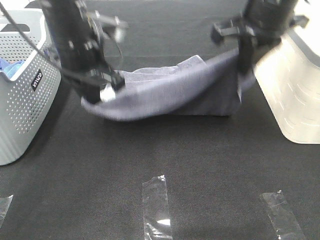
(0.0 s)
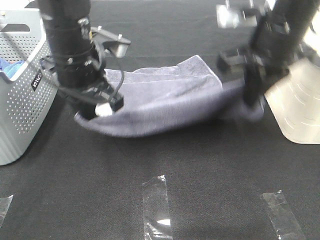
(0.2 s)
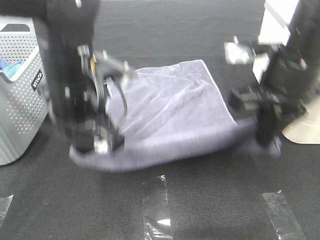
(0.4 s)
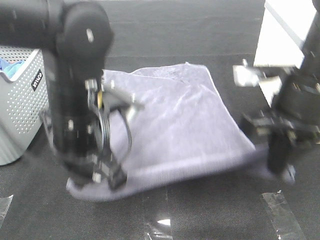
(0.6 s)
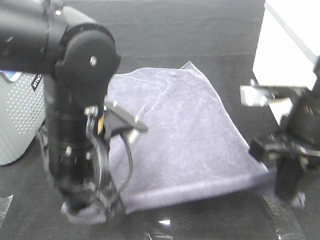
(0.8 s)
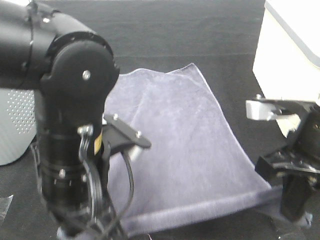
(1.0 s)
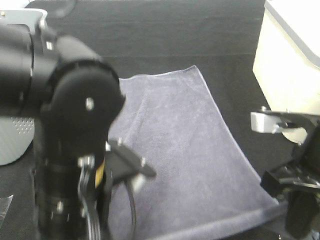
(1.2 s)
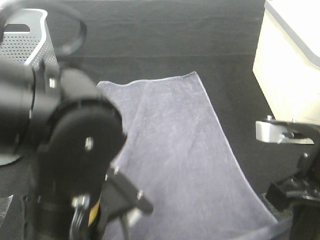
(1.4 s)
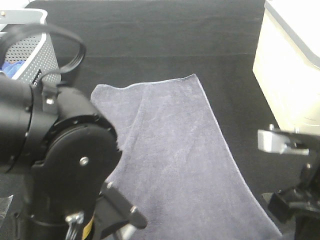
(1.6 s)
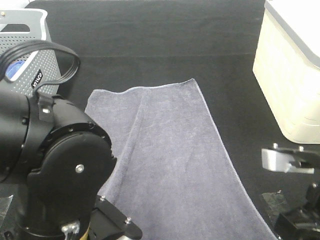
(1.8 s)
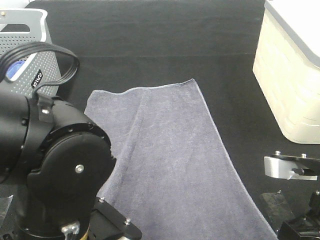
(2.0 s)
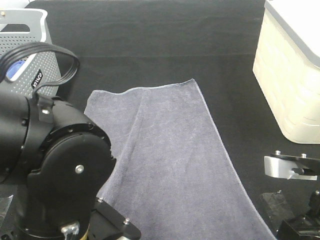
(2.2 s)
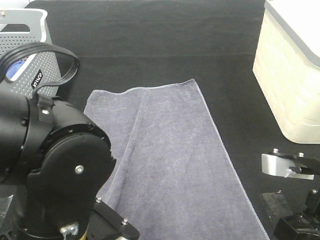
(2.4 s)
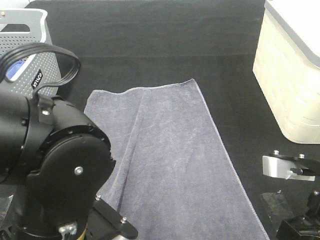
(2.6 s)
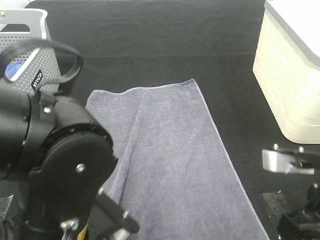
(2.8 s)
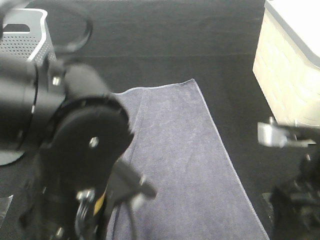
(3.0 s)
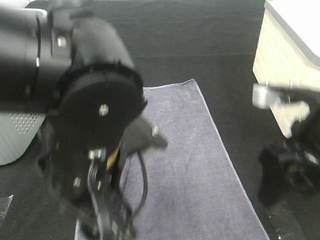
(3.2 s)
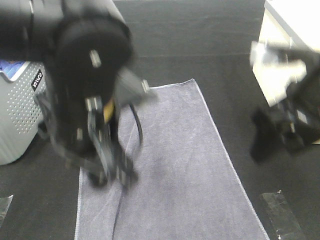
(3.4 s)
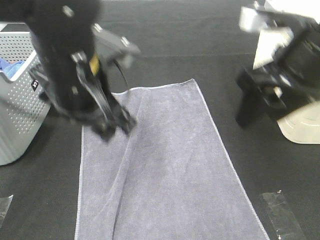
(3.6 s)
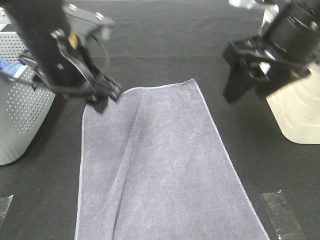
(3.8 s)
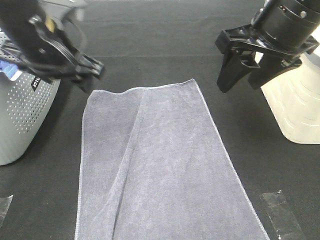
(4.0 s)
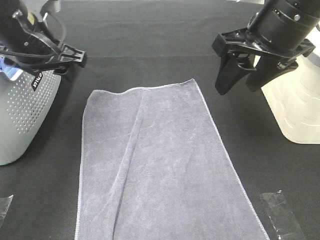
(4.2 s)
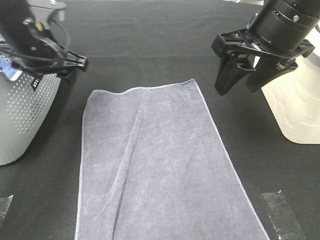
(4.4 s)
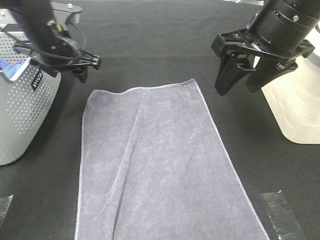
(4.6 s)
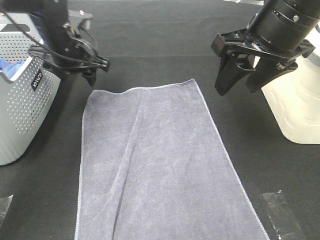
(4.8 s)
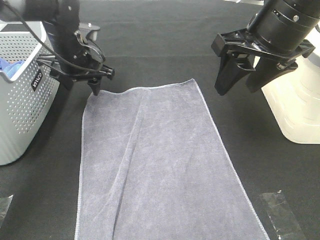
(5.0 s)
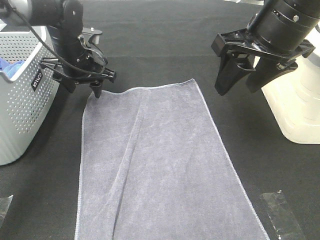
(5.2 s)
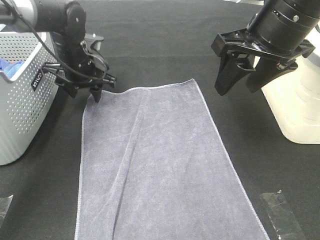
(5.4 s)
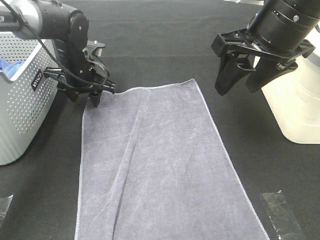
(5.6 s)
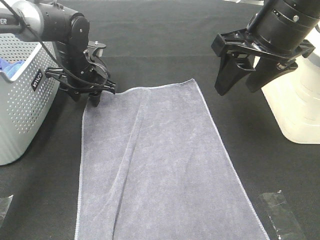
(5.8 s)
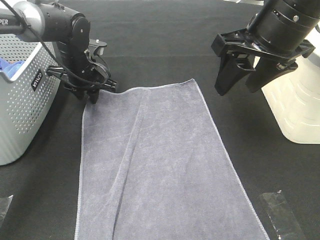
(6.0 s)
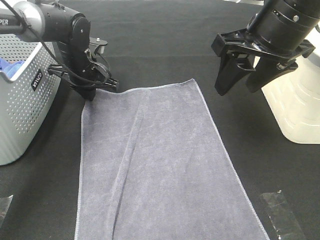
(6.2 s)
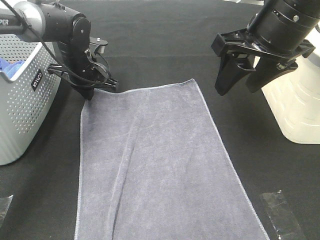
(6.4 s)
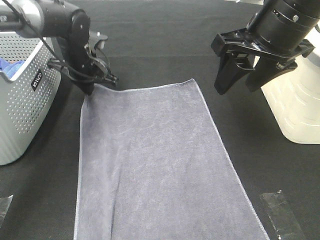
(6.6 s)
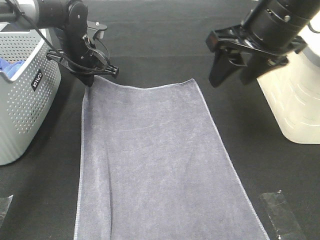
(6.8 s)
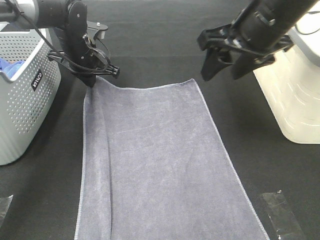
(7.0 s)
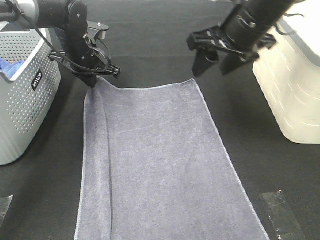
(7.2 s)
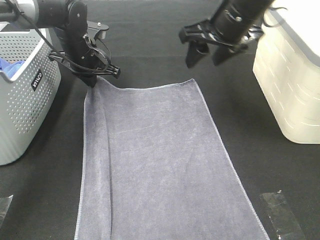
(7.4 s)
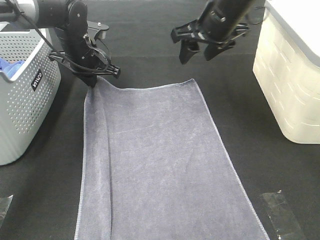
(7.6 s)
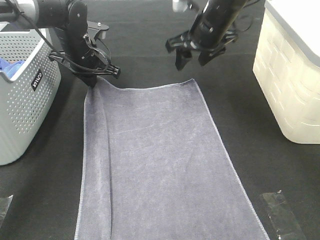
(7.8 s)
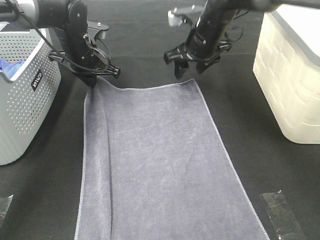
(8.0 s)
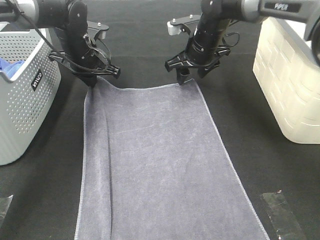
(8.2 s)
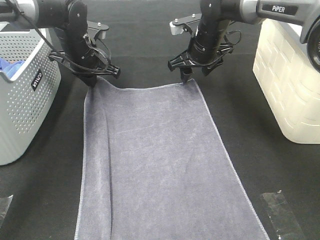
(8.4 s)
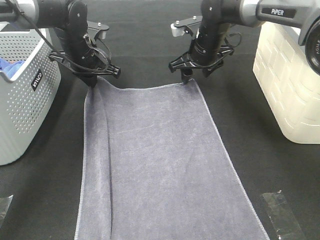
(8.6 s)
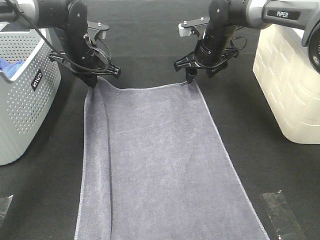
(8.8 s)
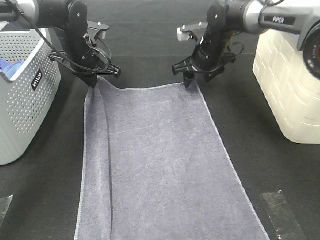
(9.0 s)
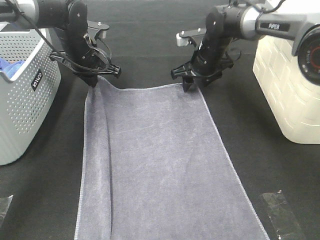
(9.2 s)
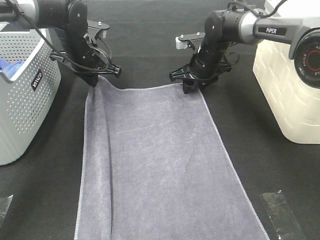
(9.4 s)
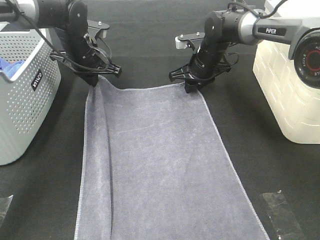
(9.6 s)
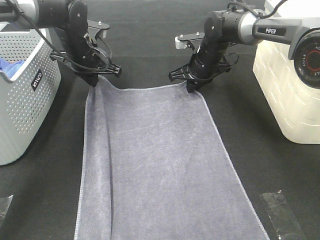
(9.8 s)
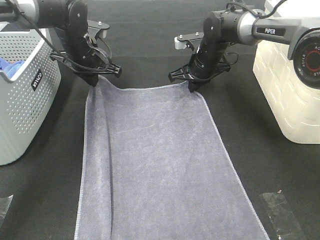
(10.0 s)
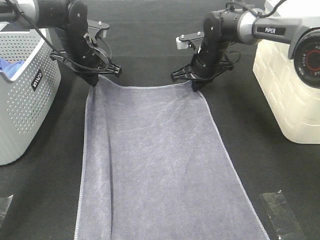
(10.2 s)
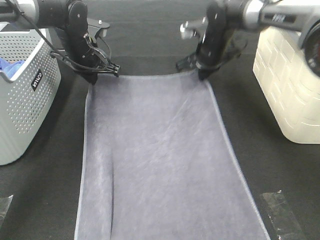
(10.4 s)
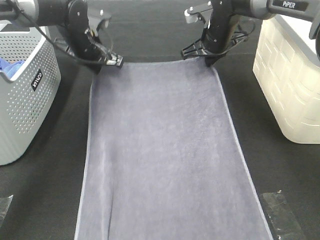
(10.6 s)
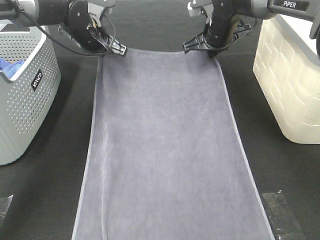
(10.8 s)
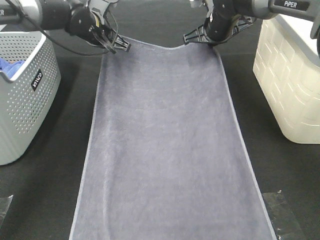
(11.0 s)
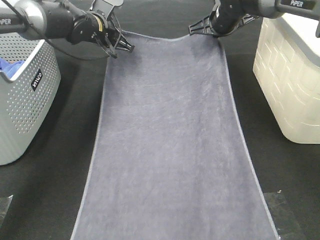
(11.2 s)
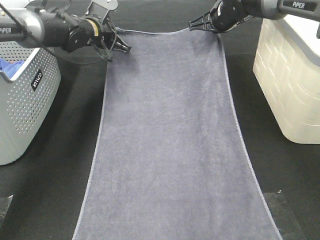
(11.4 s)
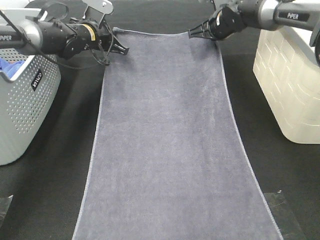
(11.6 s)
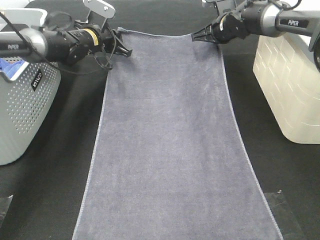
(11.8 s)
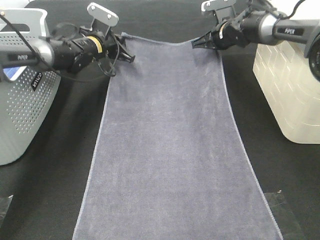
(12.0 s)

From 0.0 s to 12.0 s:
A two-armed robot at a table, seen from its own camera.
Task of the whole recording: Remove the towel and place it.
Step, from 0.0 s to 7.0 s: Left hand:adjust the gray towel.
Step, from 0.0 s to 7.0 s: Right hand:adjust the gray towel.
From 0.0 s to 1.6 s: The left gripper is displaced backward by some 25 cm, while the right gripper goes about 20 cm backward and downward.
From 1.6 s to 3.0 s: The left gripper opens up, while the right gripper opens.
From 3.0 s to 4.4 s: The left gripper travels forward and to the left by about 30 cm, while the right gripper travels forward and upward by approximately 15 cm.
From 4.4 s to 6.0 s: The left gripper shifts about 15 cm downward and forward, and closes.
From 6.0 s to 7.6 s: The left gripper closes. Meanwhile the right gripper moves forward, about 15 cm.
From 7.6 s to 9.0 s: The right gripper shifts some 15 cm downward and forward.
From 9.0 s to 10.4 s: The right gripper closes up.
From 10.4 s to 12.0 s: The left gripper is displaced forward and downward by approximately 10 cm, while the right gripper moves forward, approximately 5 cm.

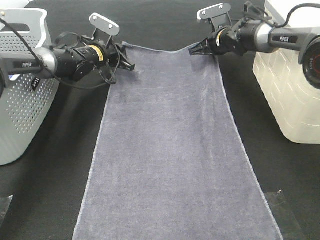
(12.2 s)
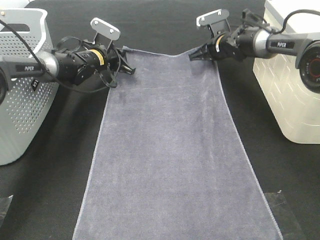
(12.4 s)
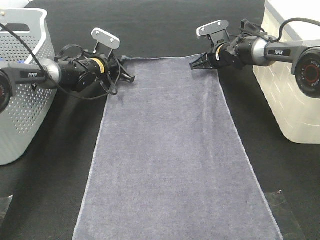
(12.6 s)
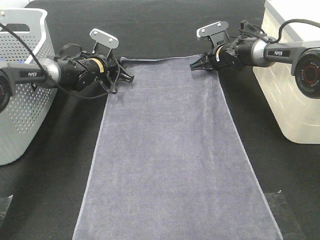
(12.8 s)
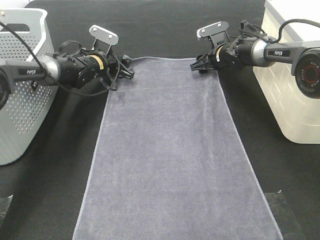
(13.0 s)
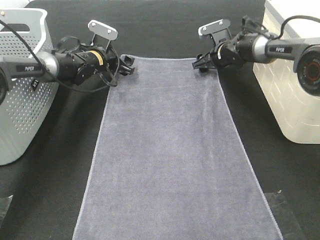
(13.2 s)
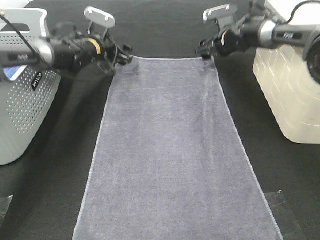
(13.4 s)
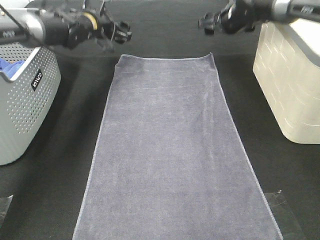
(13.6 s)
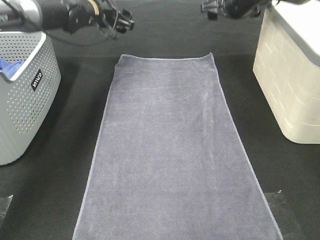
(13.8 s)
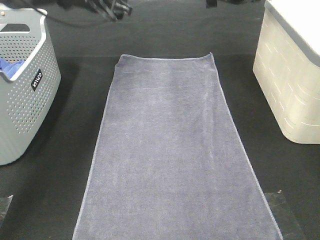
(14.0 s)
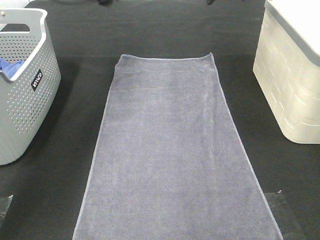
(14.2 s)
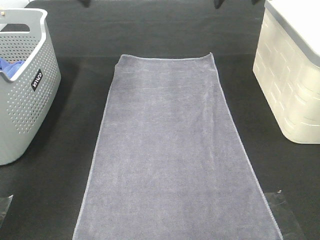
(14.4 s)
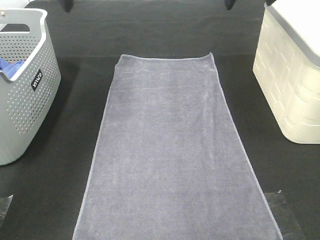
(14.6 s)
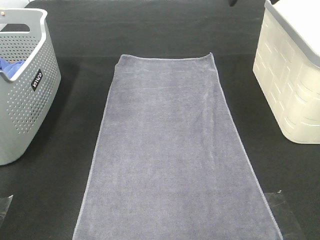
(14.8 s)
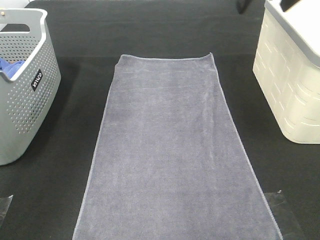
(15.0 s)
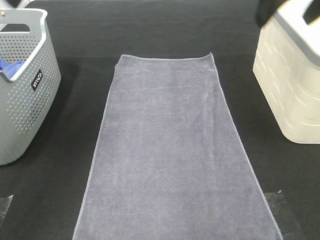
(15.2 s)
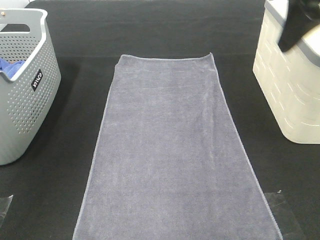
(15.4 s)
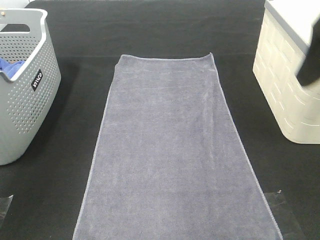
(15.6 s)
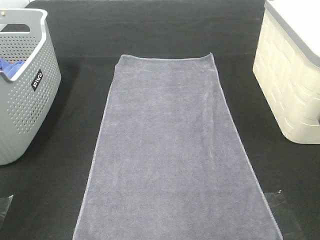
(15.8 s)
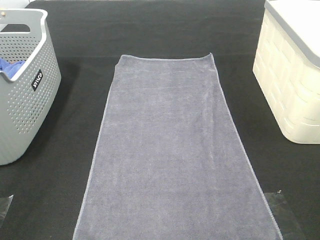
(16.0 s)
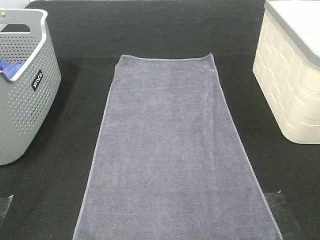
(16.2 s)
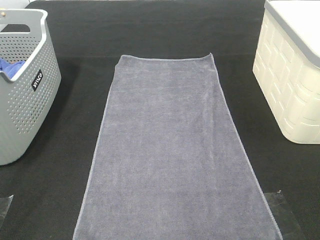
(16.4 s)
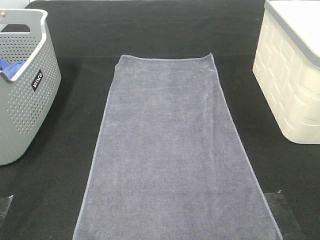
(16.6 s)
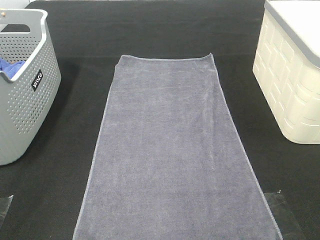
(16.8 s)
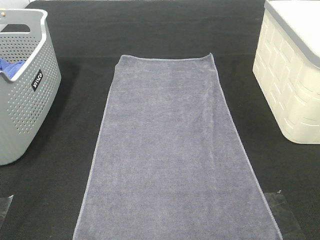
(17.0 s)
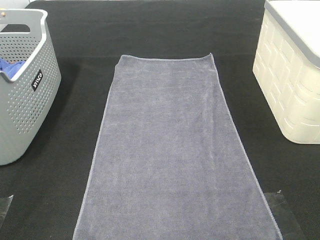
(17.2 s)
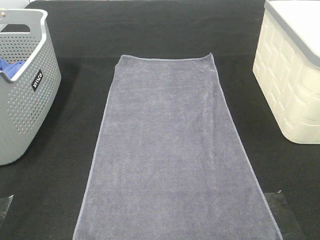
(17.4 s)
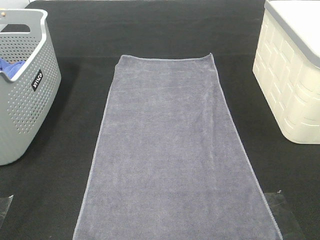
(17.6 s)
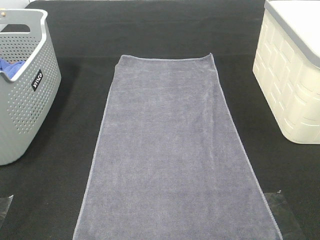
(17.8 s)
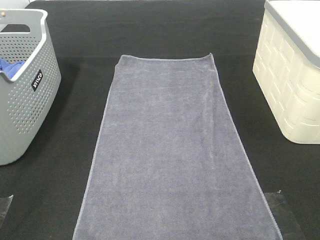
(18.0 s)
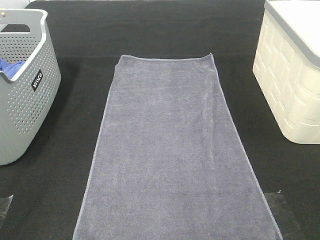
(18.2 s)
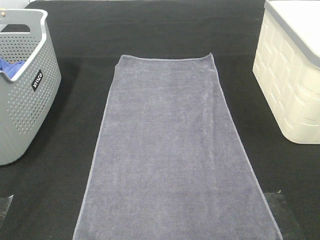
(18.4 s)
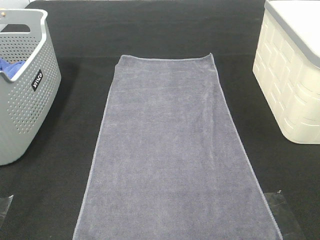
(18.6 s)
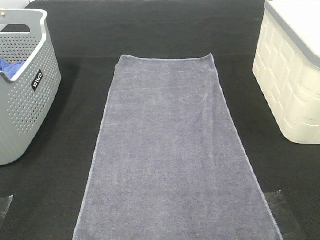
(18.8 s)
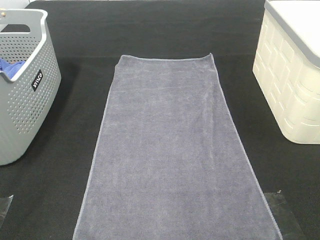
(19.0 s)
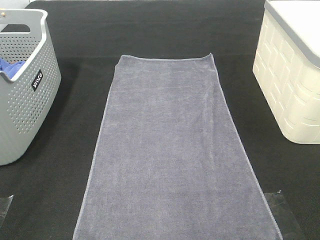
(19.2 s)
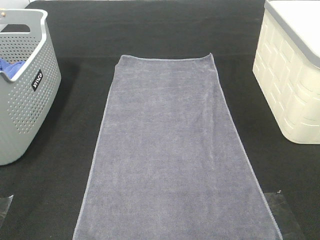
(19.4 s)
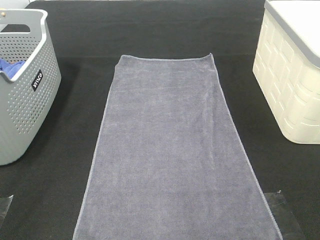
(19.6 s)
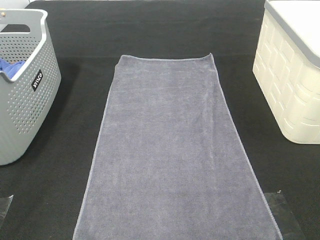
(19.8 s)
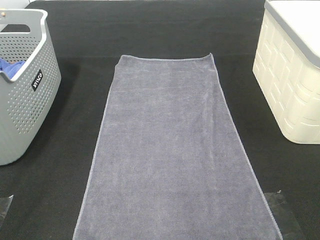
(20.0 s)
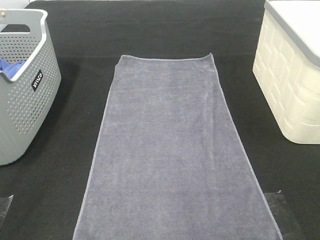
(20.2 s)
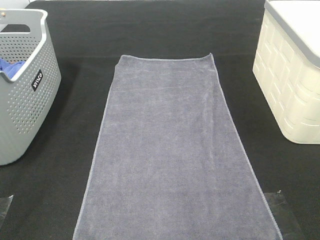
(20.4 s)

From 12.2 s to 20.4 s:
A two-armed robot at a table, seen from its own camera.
Task of the whole recording: Remove the towel and place it.
From 12.2 s to 13.8 s: Both grippers move upward, some 15 cm. The left gripper opens. Meanwhile the right gripper opens its fingers.
From 13.8 s to 15.4 s: Both grippers move backward and upward, roughly 35 cm.
From 15.4 s to 17.2 s: The right gripper moves backward, approximately 25 cm; the left gripper goes some 25 cm backward and downward.
From 18.8 s to 20.4 s: Neither gripper changes place.

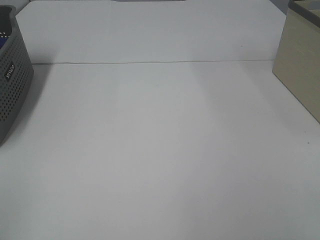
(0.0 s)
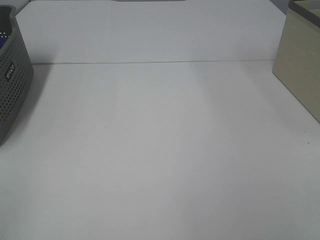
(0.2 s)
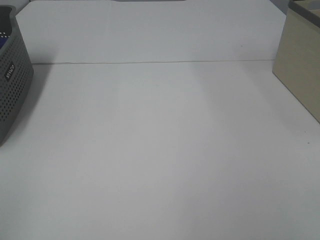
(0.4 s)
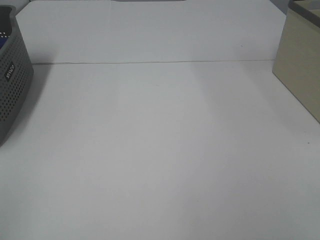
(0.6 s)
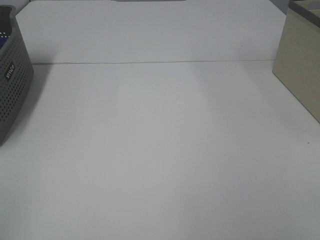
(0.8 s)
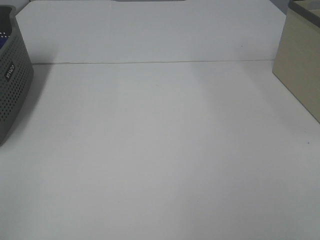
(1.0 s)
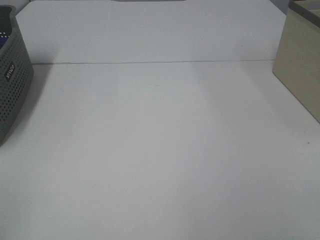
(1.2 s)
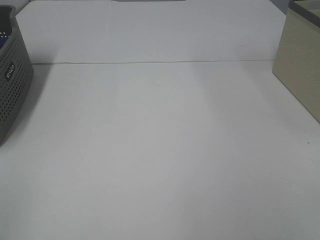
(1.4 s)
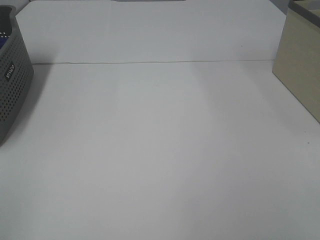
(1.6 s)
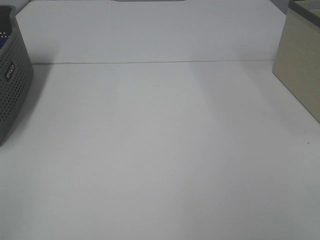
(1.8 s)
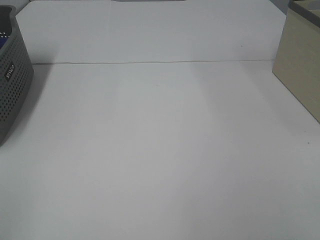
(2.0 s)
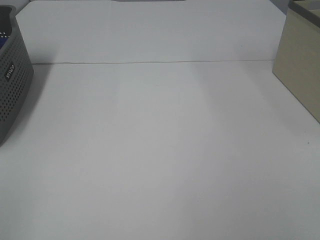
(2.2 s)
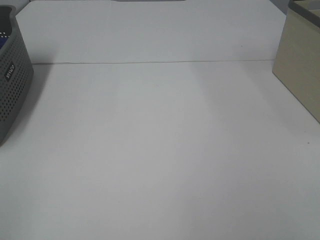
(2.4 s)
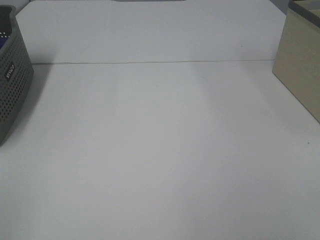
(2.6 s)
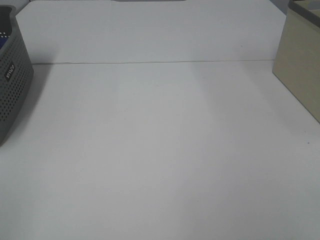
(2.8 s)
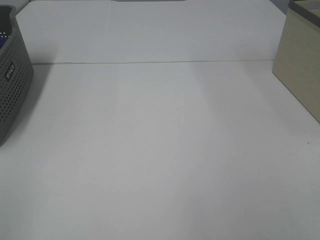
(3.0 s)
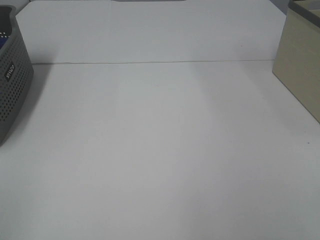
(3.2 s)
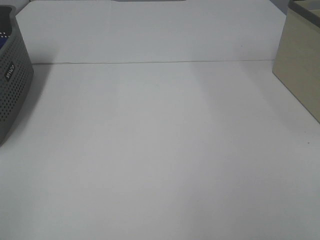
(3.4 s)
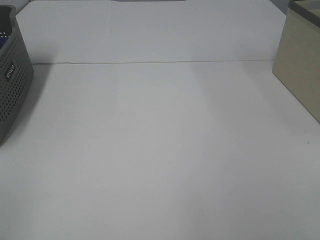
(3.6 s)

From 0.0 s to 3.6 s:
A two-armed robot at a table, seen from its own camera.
Task of the whole recording: Remove the towel and place it.
From 0.0 s to 3.6 s: Neither gripper changes place.
